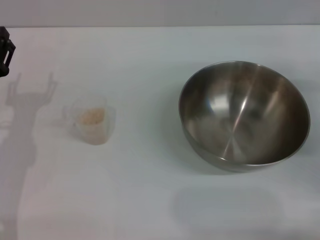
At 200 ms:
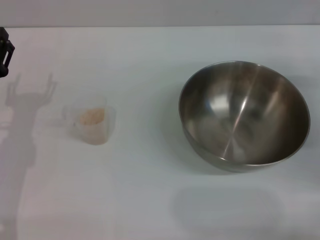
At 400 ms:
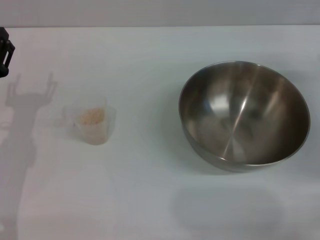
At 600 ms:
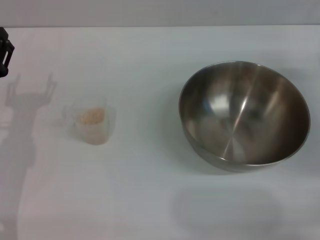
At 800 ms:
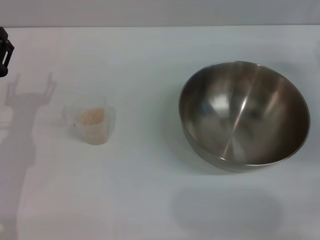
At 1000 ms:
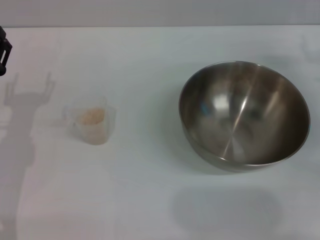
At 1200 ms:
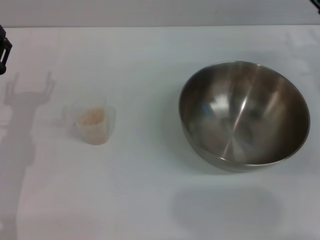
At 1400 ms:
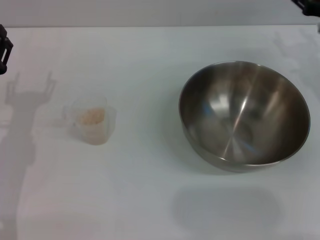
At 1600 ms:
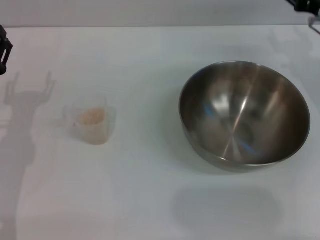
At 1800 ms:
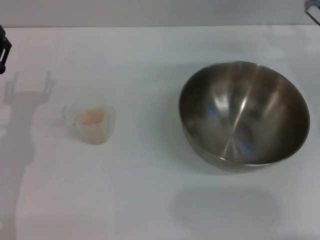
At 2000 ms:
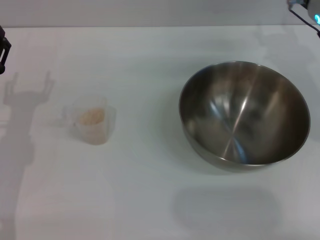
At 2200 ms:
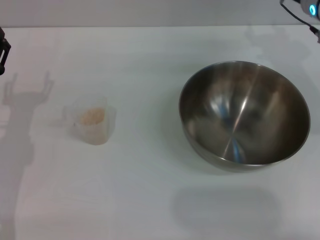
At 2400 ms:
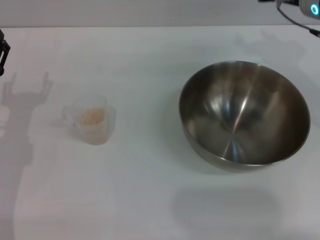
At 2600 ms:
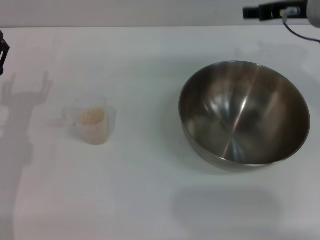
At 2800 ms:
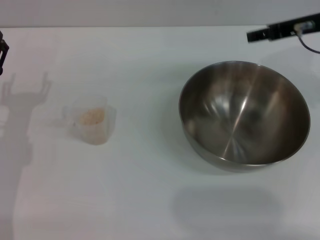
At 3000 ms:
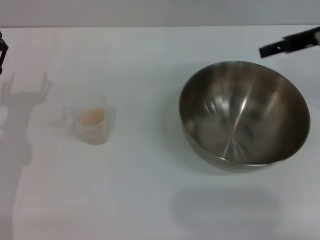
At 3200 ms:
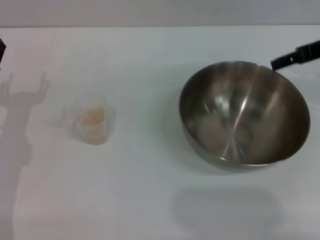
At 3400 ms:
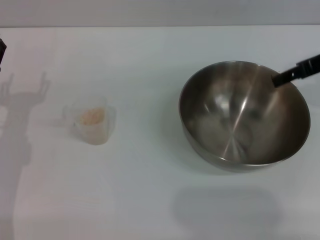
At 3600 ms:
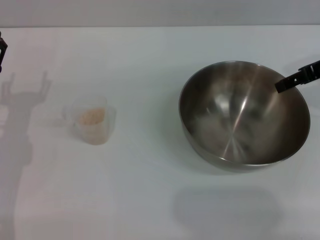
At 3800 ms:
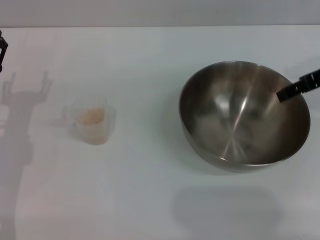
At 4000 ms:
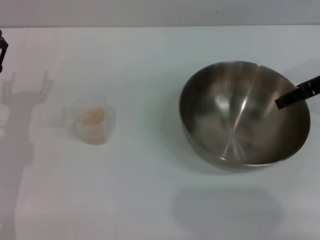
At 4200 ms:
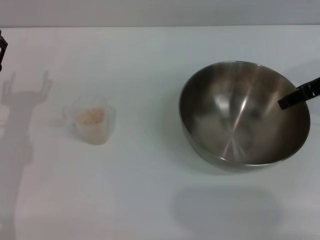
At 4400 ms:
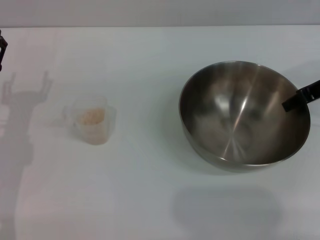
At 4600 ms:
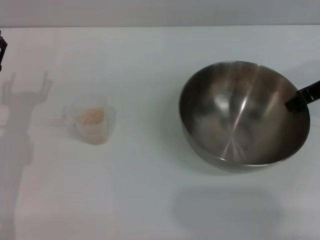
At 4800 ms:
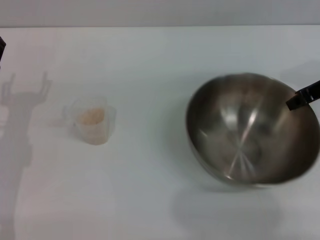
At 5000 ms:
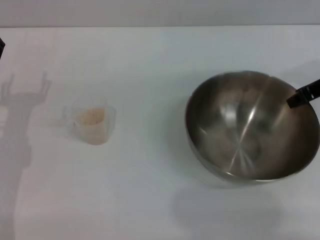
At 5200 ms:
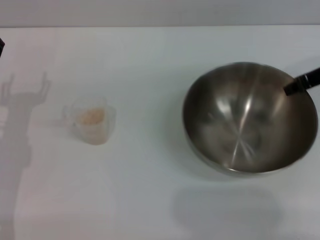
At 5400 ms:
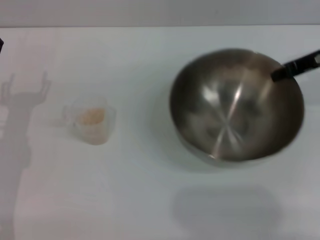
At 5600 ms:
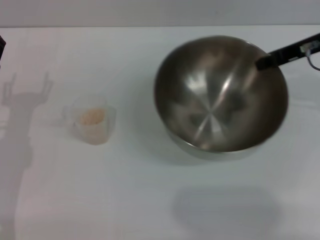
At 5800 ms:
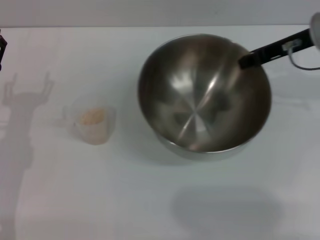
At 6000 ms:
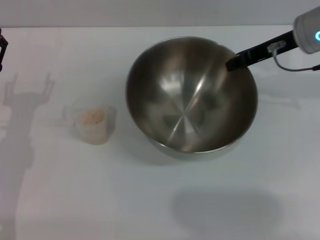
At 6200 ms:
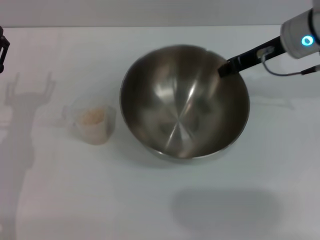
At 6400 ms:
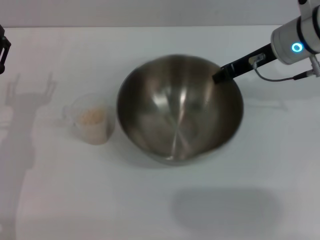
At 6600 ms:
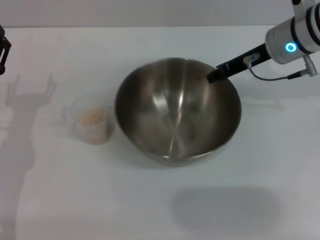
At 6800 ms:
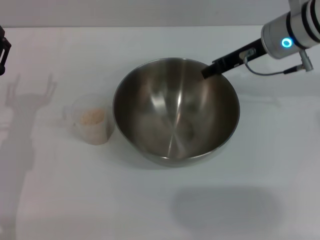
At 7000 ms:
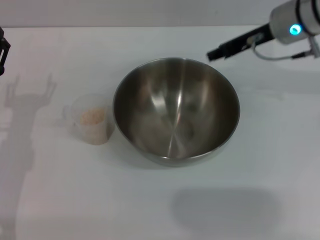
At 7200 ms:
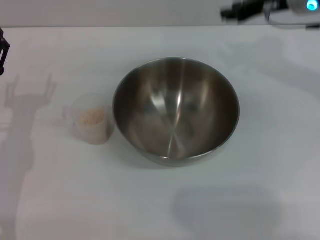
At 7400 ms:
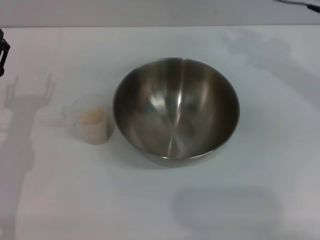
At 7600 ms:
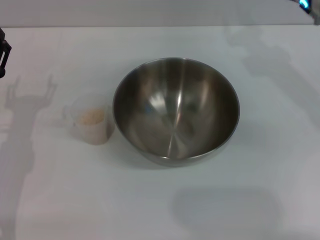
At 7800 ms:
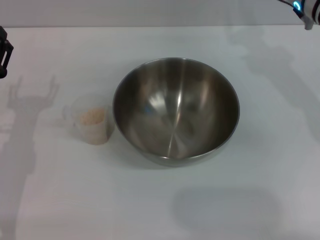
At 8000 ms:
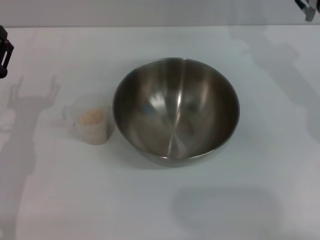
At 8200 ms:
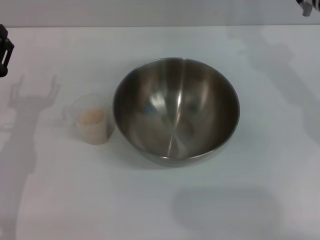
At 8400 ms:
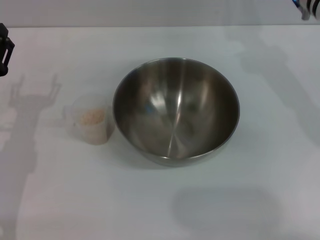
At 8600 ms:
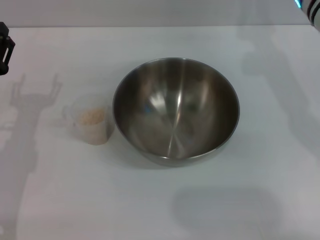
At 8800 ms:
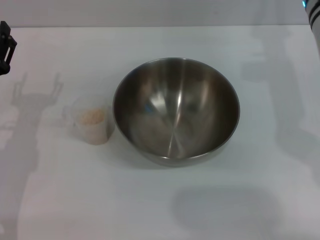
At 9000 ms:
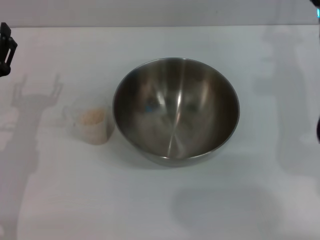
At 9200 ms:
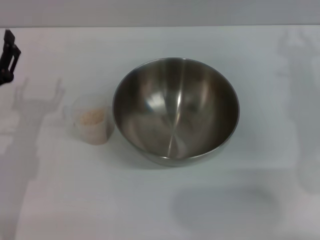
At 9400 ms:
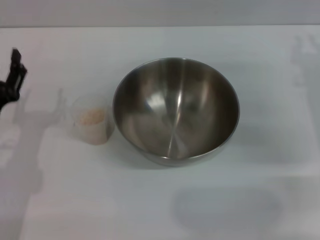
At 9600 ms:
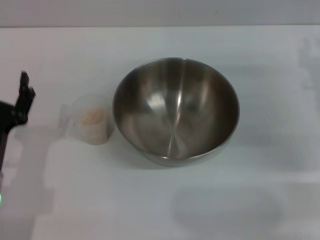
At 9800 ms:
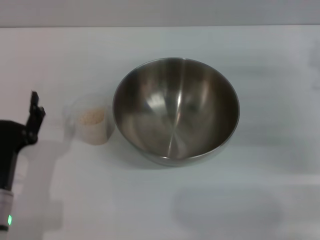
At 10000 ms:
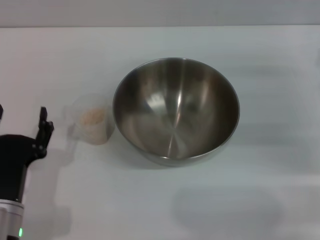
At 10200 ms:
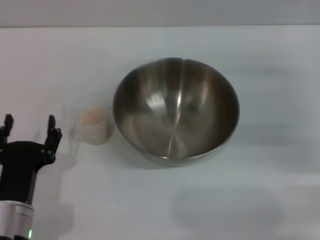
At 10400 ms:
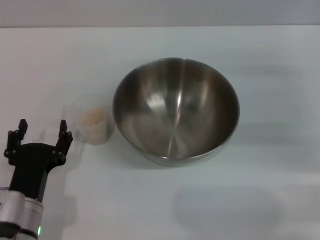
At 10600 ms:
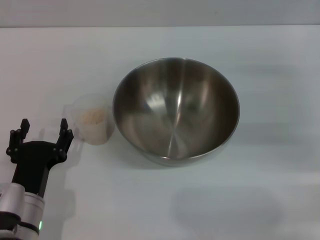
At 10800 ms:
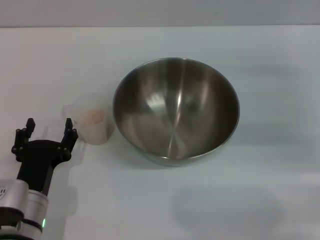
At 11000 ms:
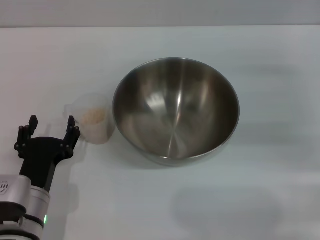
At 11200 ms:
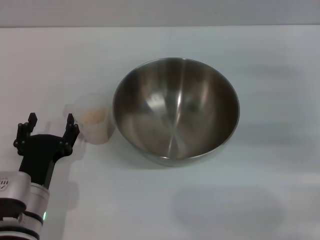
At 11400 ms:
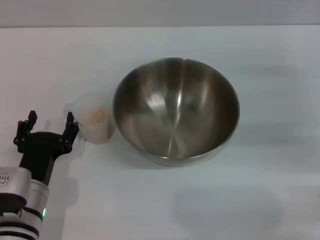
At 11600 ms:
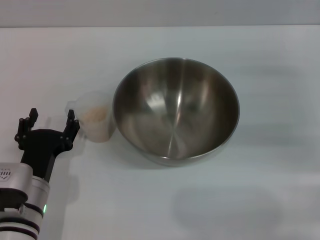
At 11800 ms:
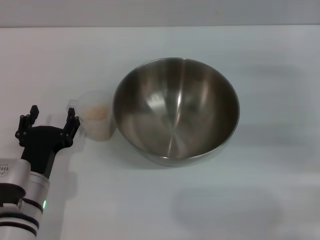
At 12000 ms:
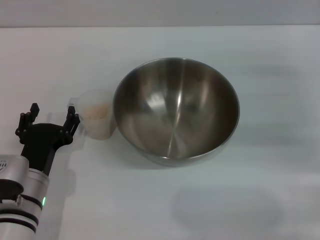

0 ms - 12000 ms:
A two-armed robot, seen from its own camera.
Task of the whole recording: Place the bowl in the middle of the table with one hand and pour the rice from the grain cup into it with the other hand.
Step, 0 ms - 5400 ms: Pick up the bowl with the right gripper.
Step, 5600 ms - 6800 ms: Place the bowl in the center of view with the right gripper.
0 ms - 1600 ms: The right gripper moves forward, upward and to the left, about 15 cm.
1600 ms - 3000 ms: The right gripper heads upward, covering approximately 10 cm.
3000 ms - 4400 ms: The grippers move only a little.
4400 ms - 6000 ms: The right gripper is displaced to the left by approximately 5 cm, and closes its fingers.
6000 ms - 7600 ms: The right gripper opens.
9000 ms - 10400 ms: The right gripper goes roughly 15 cm to the right and downward, while the left gripper heads backward and to the right, covering approximately 15 cm.
10400 ms - 12000 ms: The grippers make only small movements.

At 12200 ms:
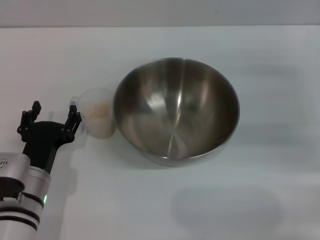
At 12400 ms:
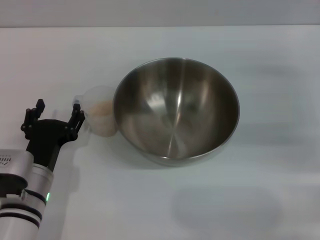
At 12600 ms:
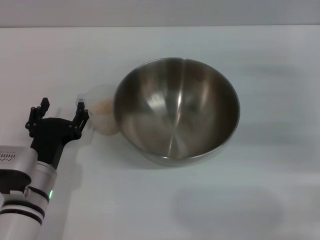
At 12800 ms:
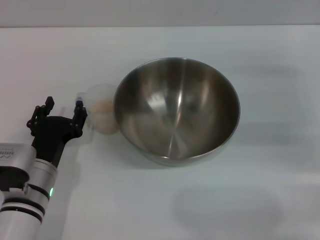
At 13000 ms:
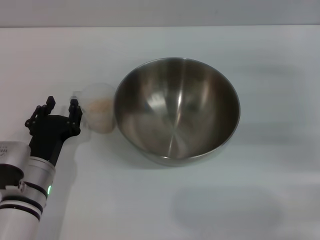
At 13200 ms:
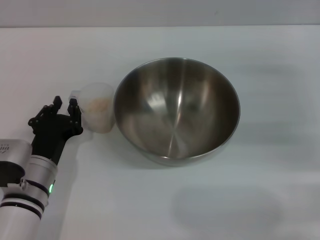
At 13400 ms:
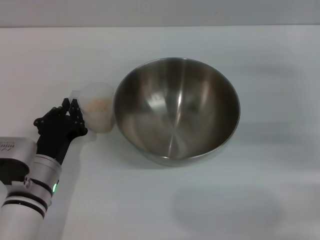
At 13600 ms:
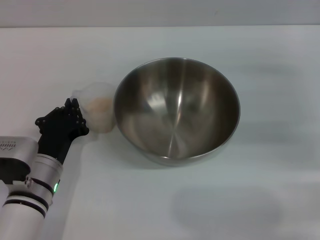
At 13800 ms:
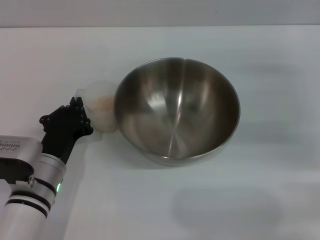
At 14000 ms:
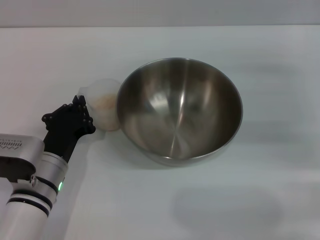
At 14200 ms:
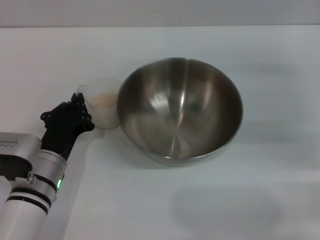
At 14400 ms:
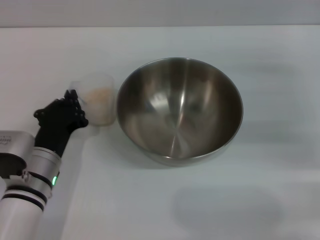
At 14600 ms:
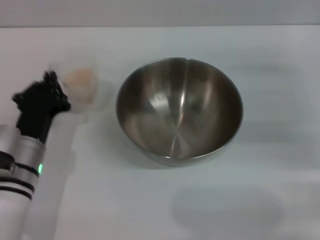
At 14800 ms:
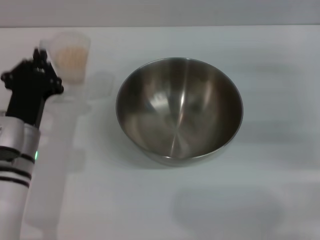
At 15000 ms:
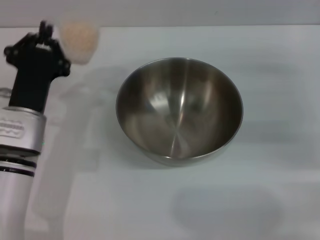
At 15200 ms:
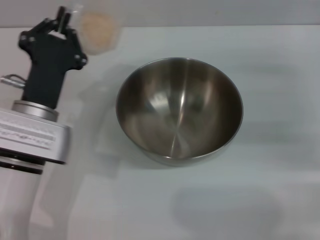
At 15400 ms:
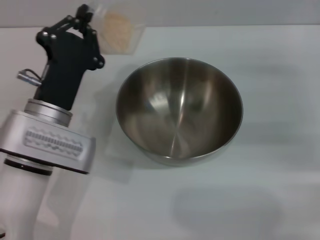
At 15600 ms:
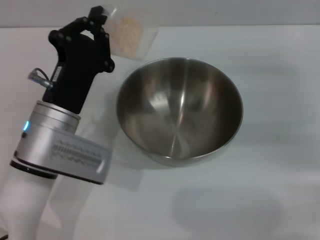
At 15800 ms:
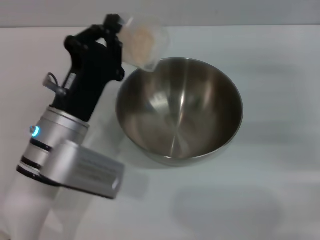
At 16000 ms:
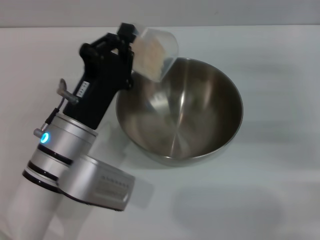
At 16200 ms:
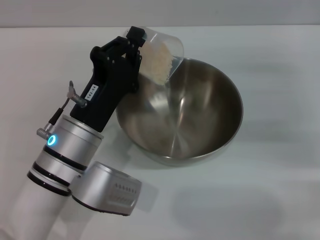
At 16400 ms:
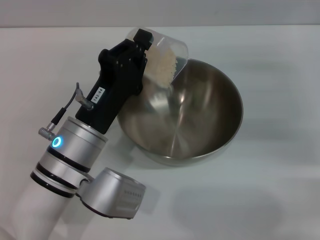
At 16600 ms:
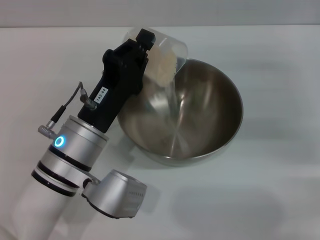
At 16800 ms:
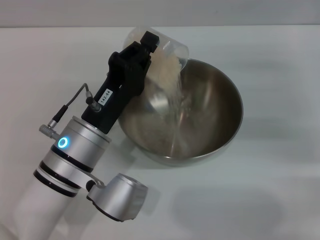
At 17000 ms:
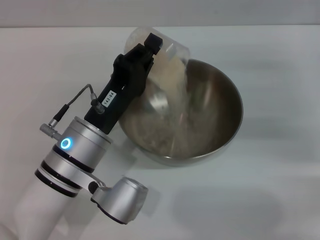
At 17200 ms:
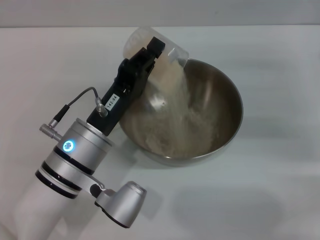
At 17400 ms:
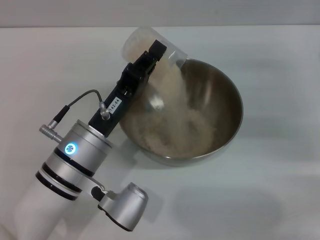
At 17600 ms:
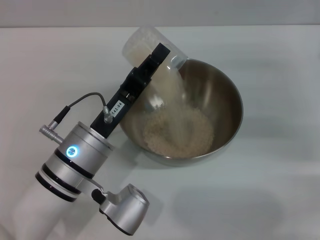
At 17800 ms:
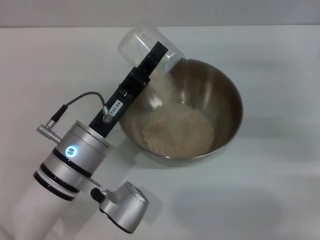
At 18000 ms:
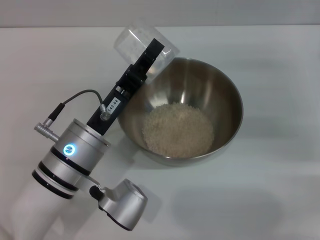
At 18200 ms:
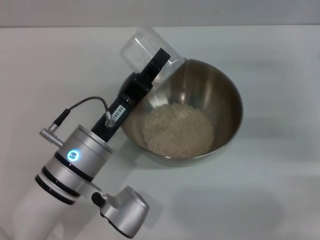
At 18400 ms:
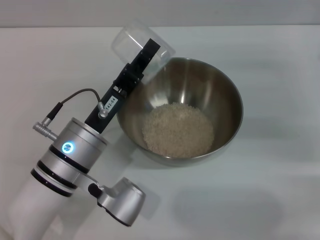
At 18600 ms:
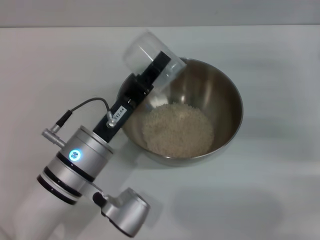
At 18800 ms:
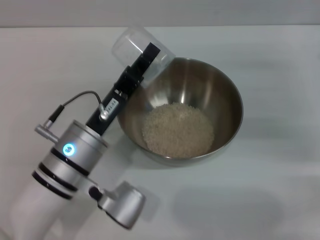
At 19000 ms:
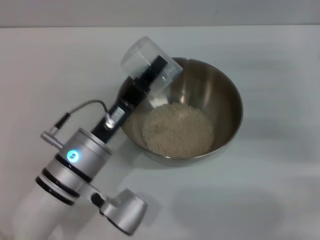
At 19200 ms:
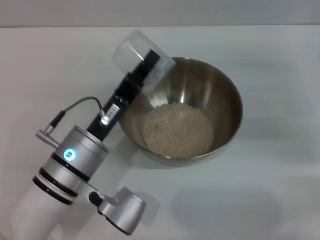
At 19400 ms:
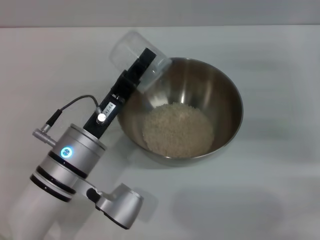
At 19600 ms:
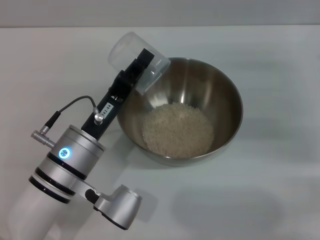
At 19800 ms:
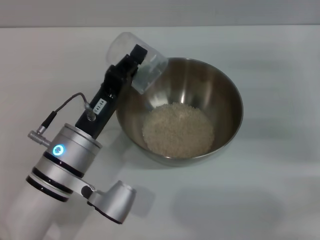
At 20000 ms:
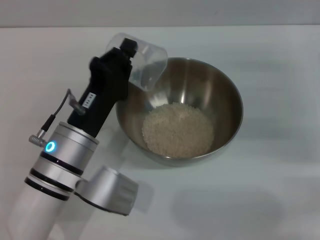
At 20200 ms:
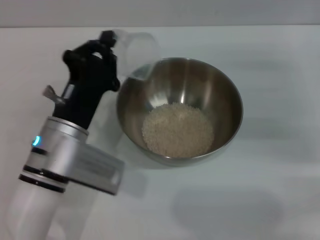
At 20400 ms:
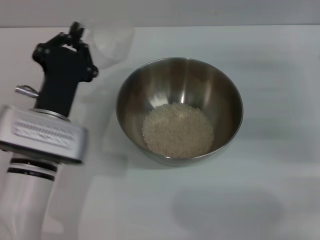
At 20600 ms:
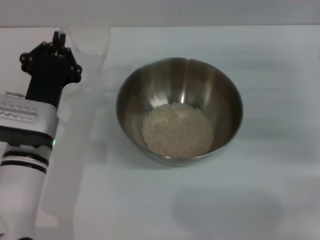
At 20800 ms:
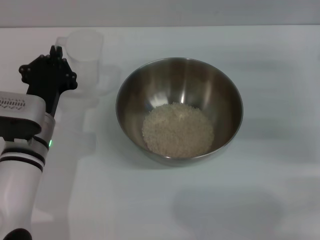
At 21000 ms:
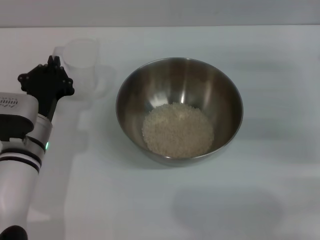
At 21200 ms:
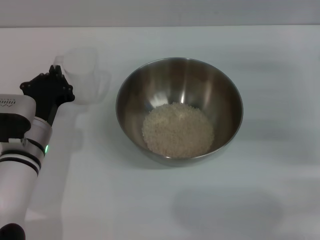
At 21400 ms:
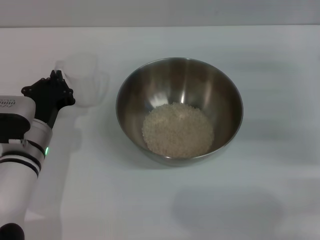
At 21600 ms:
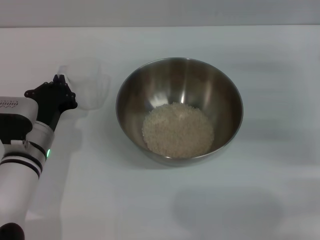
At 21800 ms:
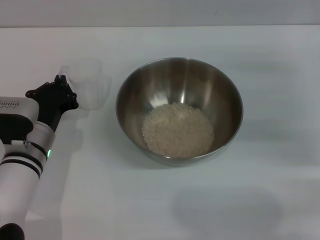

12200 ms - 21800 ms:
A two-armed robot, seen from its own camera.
Task of the whole recording: Place the bowl in the middle of the table with one hand and pour the rice from the grain cup into it with the other hand.
Step, 12200 ms - 14600 ms: Pick up the cup with rice in it with the left gripper.
Step, 15000 ms - 19600 ms: Pour the rice from the cup into the bowl with the left gripper.
12200 ms - 13800 ms: The left gripper closes up.
13800 ms - 15400 ms: The left gripper heads upward, covering some 5 cm.
20200 ms - 21800 ms: The left gripper shifts approximately 10 cm to the left and downward.
